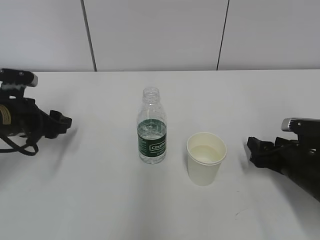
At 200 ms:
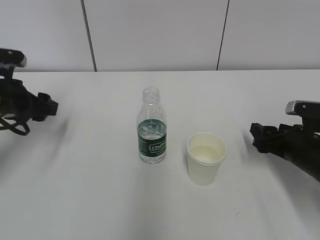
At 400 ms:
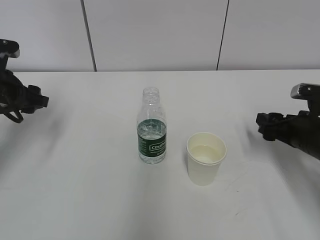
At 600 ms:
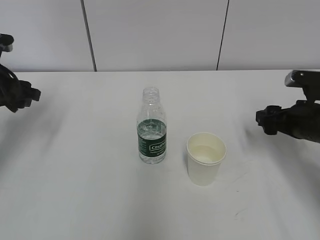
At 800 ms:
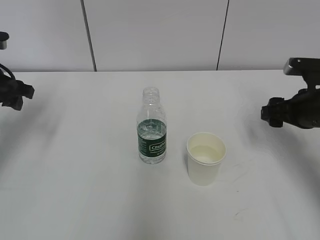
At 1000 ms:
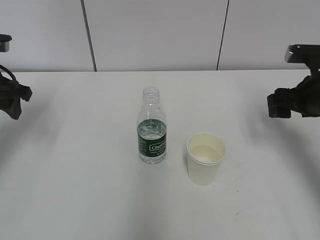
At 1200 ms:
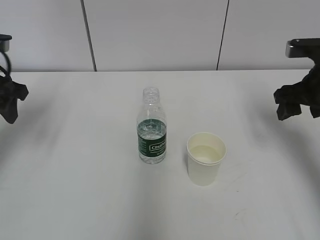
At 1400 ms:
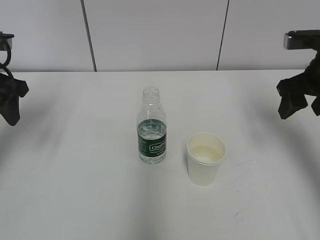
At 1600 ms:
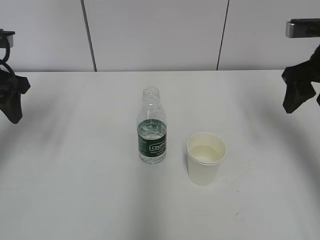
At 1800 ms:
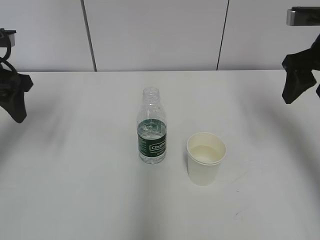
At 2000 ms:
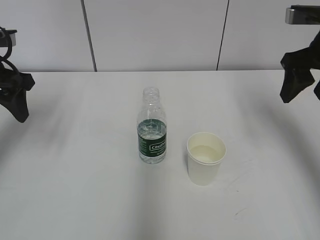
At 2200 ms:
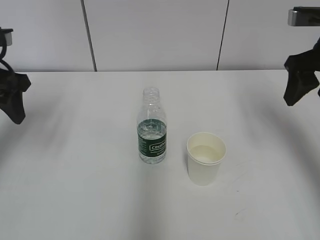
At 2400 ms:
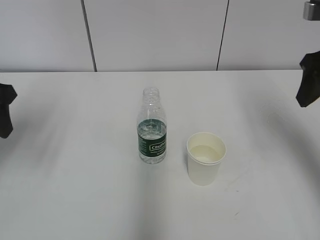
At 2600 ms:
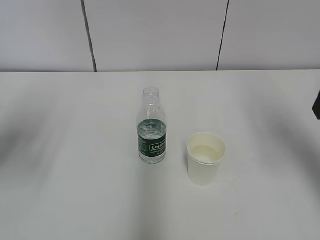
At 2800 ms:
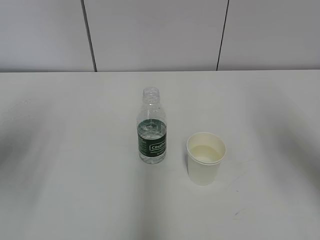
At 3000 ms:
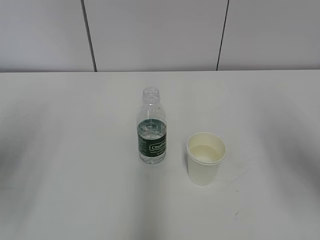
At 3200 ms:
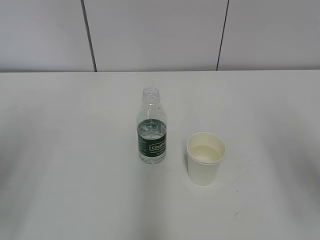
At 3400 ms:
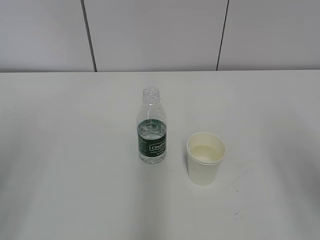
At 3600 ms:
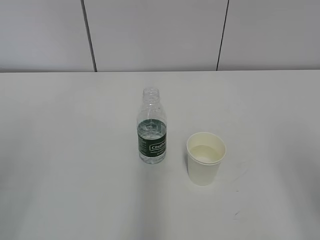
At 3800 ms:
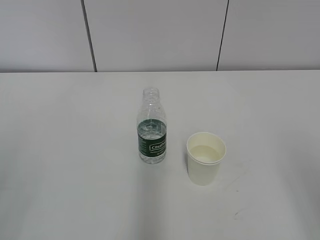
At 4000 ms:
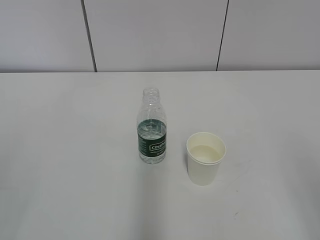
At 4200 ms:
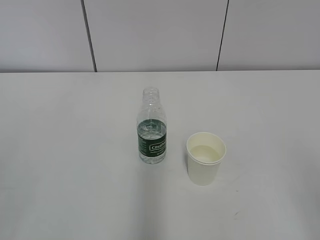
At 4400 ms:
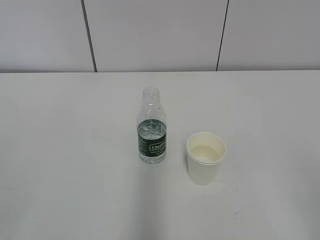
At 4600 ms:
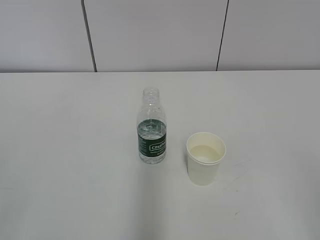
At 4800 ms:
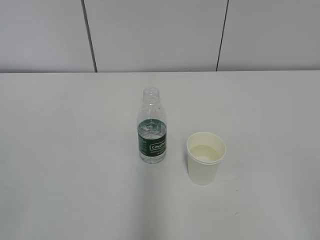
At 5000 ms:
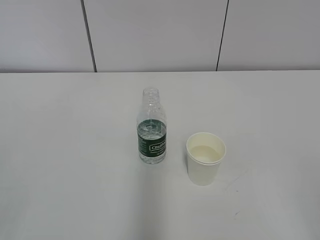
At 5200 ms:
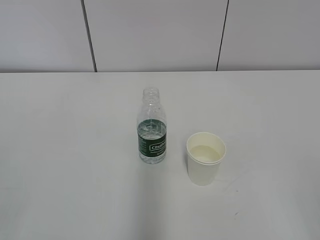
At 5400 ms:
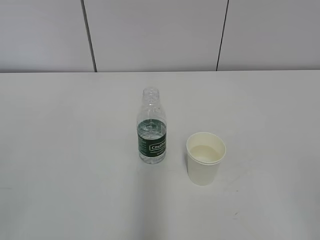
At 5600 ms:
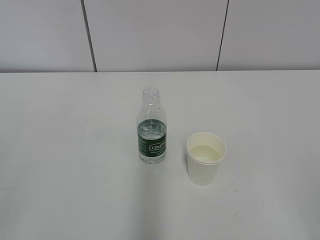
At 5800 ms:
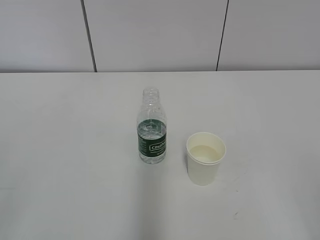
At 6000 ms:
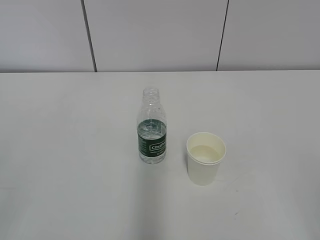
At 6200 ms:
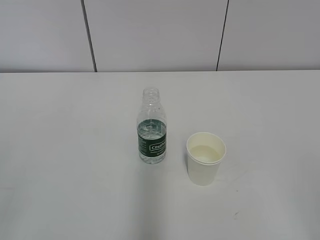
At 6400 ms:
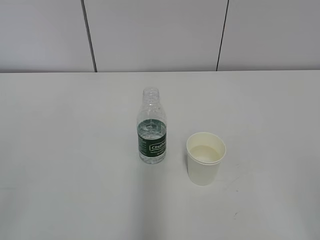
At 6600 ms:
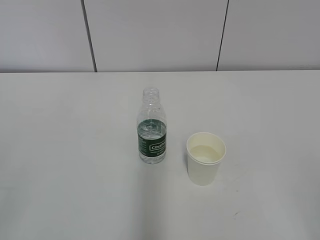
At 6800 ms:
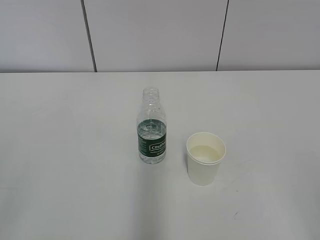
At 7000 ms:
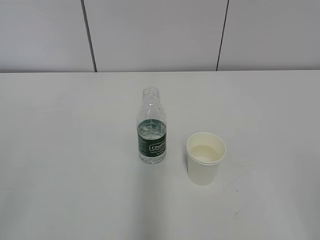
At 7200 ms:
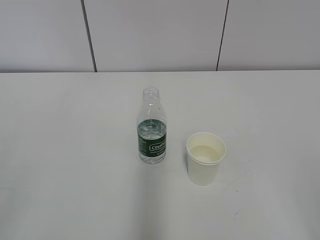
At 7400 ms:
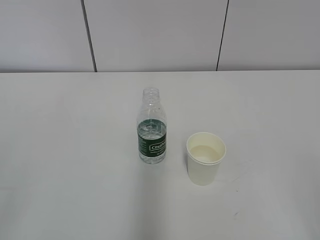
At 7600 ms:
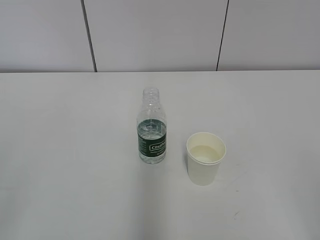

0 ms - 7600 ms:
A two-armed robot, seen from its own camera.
0 ms - 1600 ms: The right gripper travels upward by about 20 cm, while the left gripper goes about 15 cm upward.
1600 ms - 3000 ms: The two grippers go approximately 15 cm backward.
3000 ms - 4600 ms: The two grippers go roughly 20 cm backward.
6000 ms - 7600 ms: Both grippers stay put.
